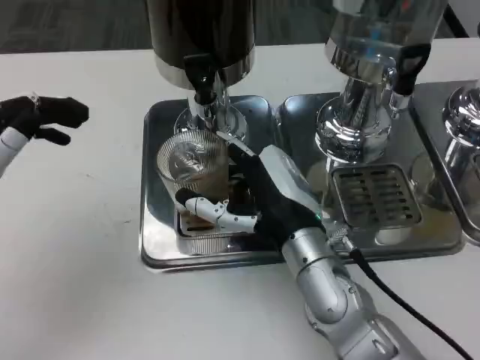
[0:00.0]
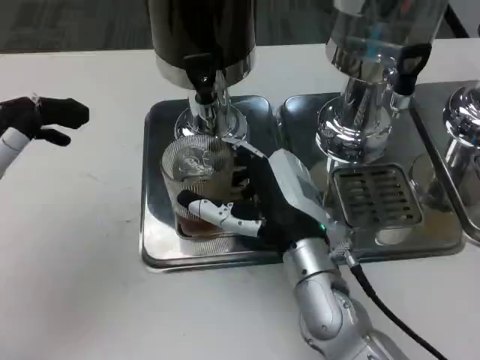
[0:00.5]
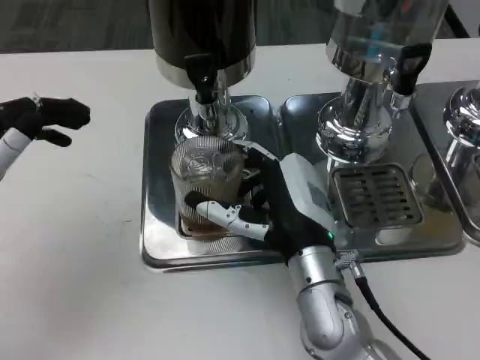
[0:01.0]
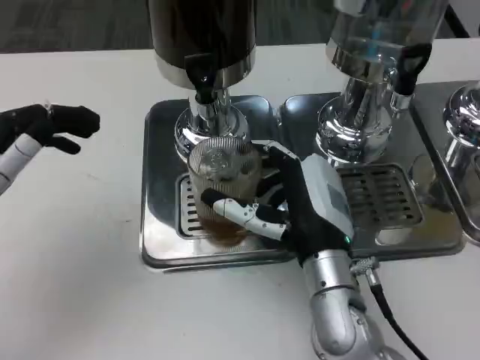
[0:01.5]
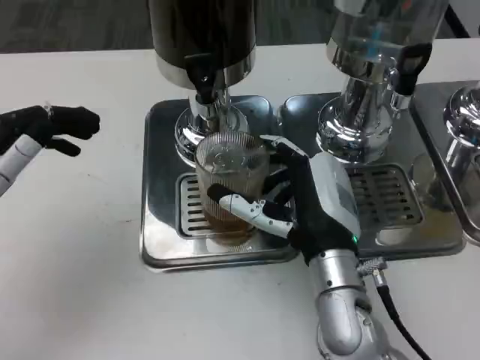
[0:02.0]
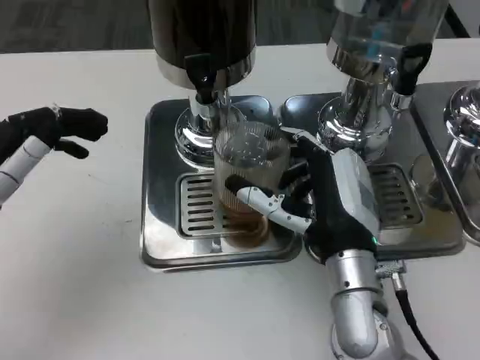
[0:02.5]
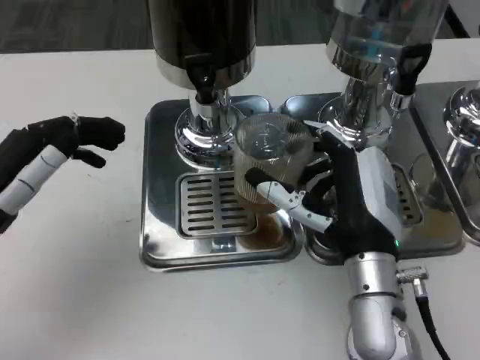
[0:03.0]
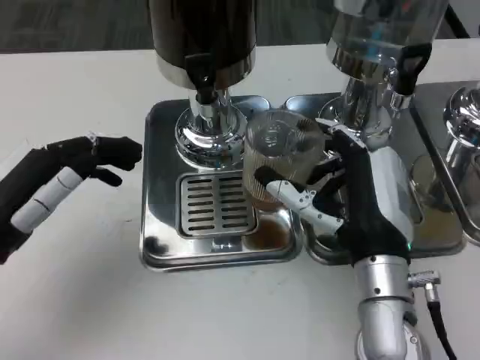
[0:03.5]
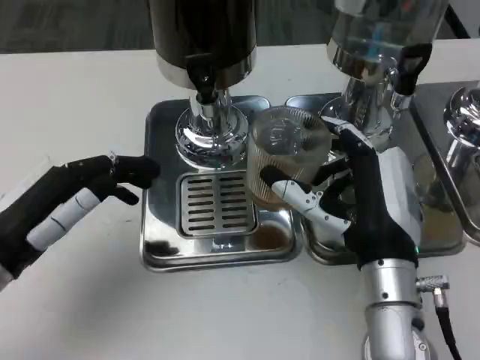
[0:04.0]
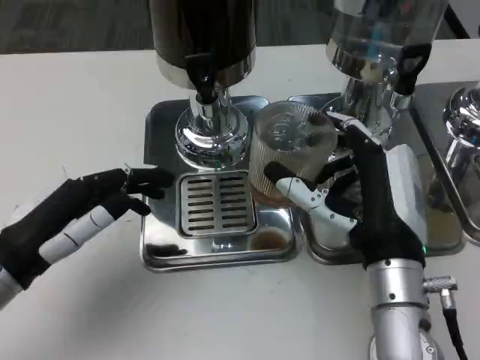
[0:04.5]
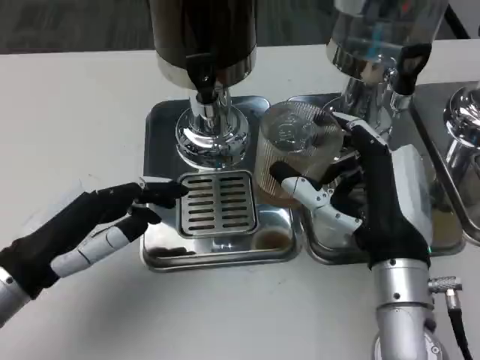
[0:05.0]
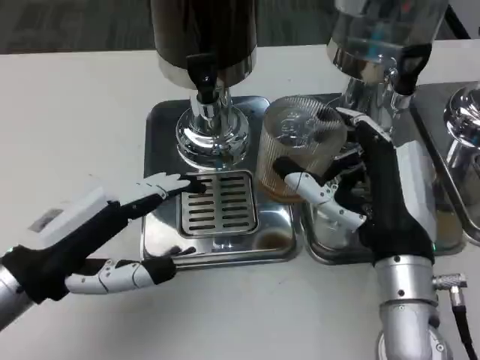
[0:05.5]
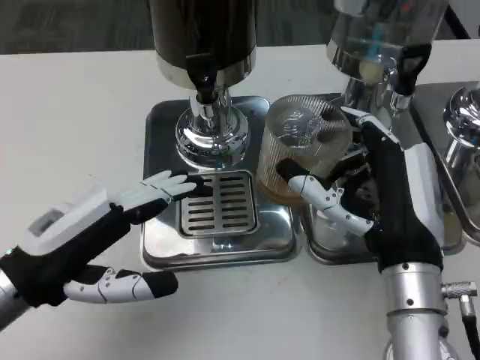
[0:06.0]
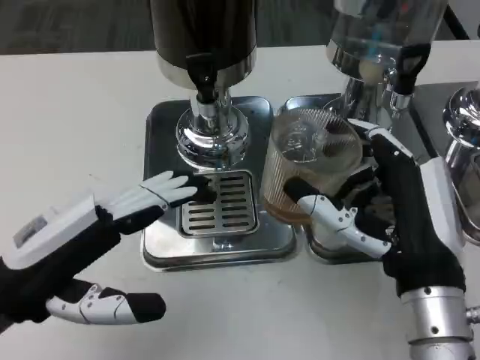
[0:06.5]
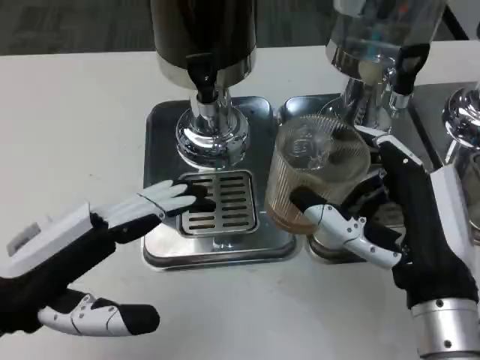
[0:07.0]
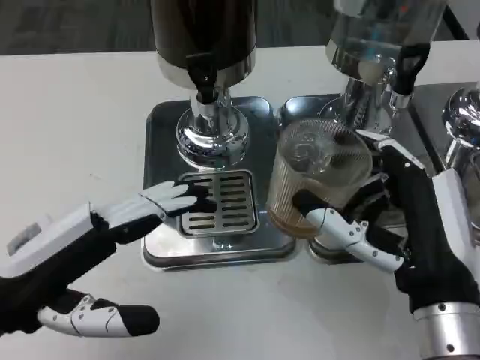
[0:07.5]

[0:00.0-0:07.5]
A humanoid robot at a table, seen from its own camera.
Task of the whole recording: Grasp the cup under the faucet to collect the drink, then remove the cup.
0:00.0 to 0:02.0: The hands move only a little.
0:05.5 to 0:07.5: The right hand travels backward by roughly 5 cm.

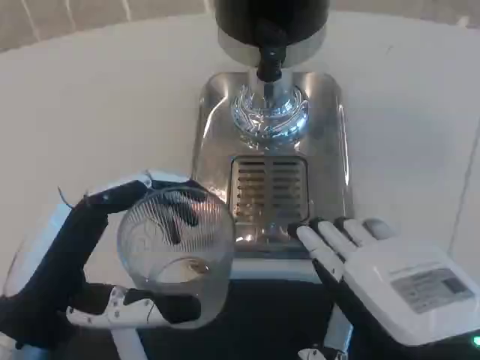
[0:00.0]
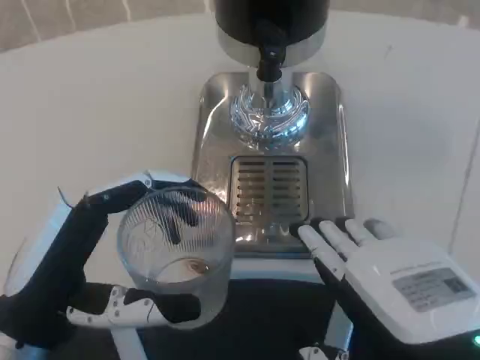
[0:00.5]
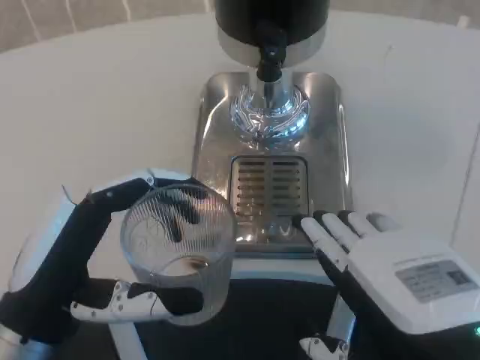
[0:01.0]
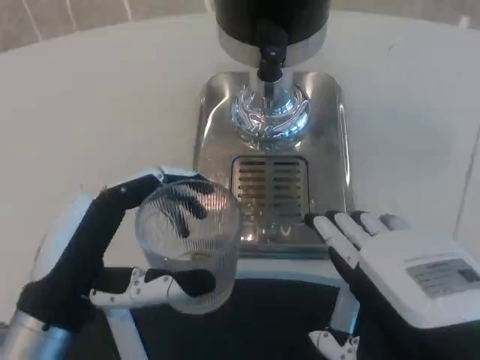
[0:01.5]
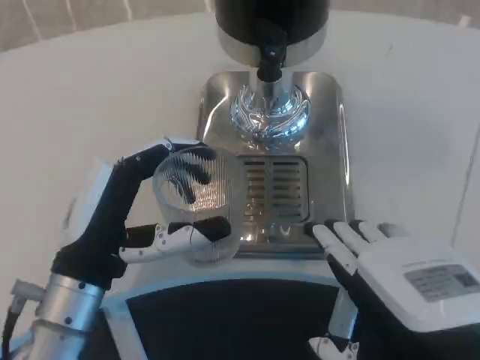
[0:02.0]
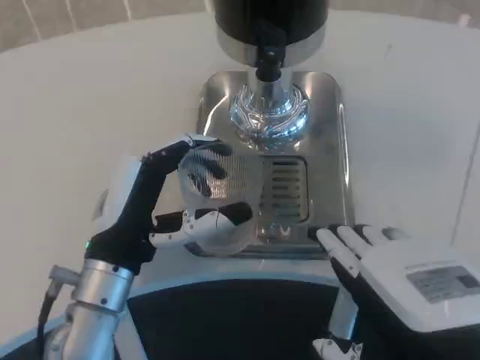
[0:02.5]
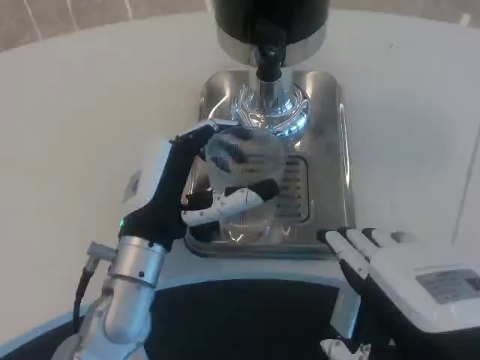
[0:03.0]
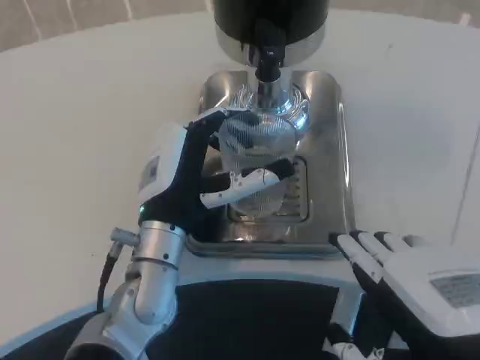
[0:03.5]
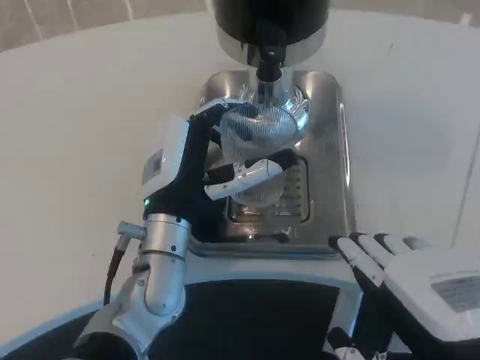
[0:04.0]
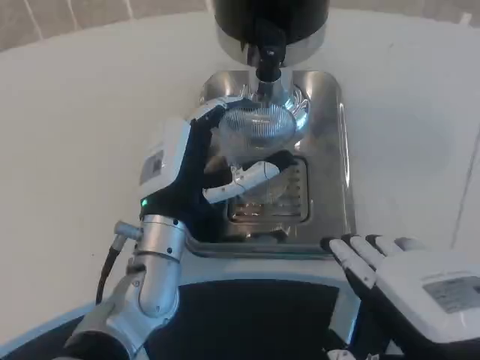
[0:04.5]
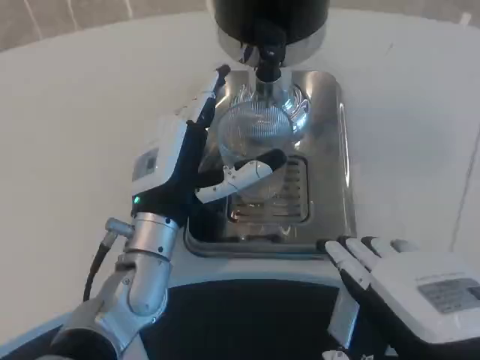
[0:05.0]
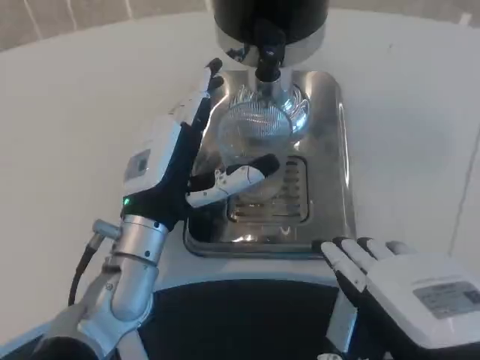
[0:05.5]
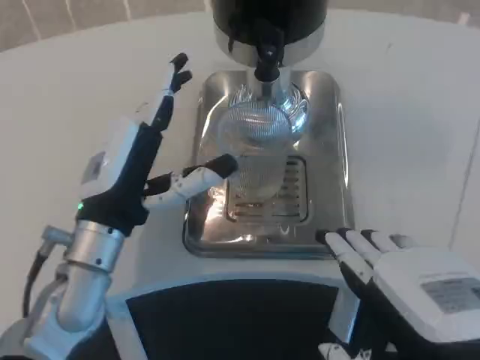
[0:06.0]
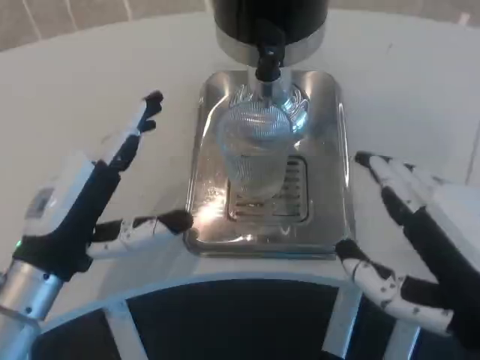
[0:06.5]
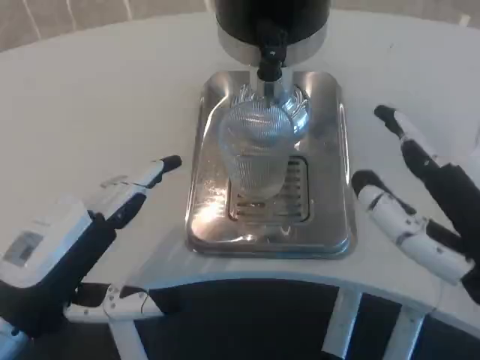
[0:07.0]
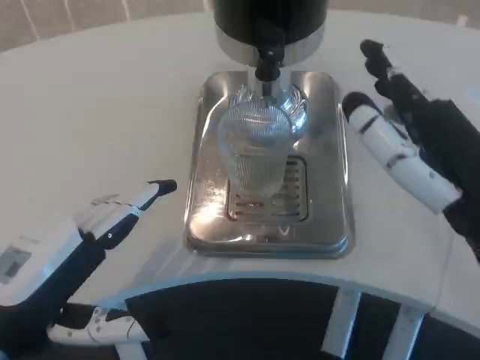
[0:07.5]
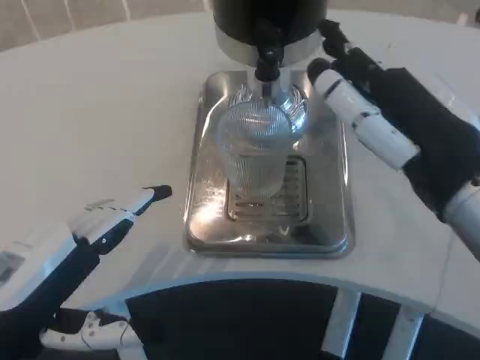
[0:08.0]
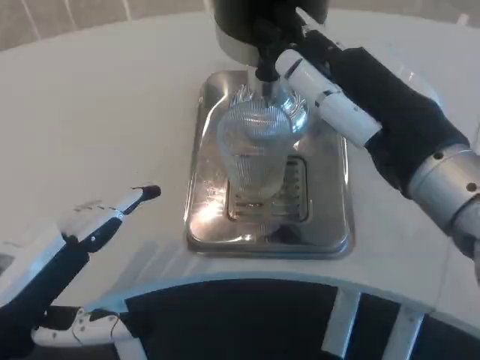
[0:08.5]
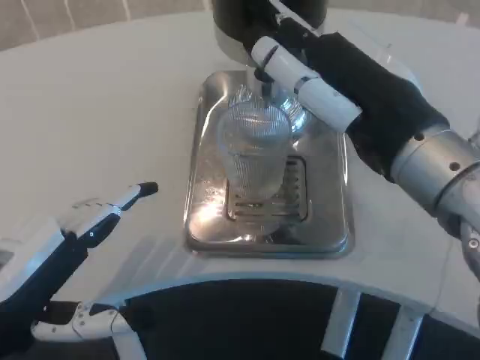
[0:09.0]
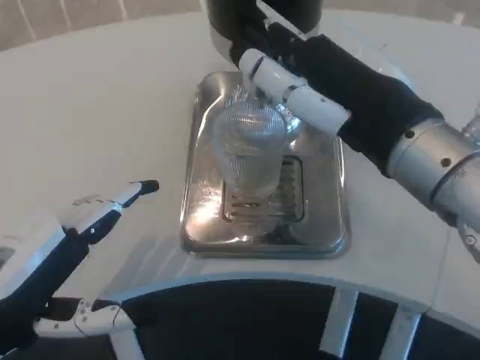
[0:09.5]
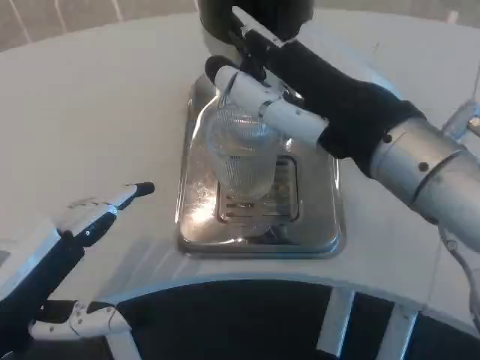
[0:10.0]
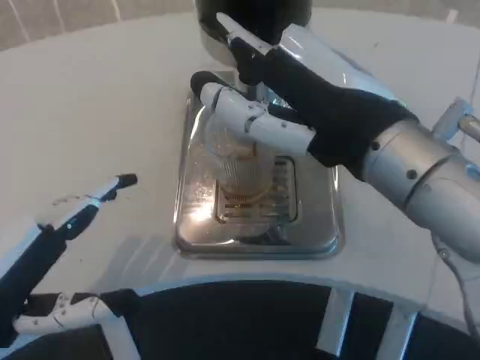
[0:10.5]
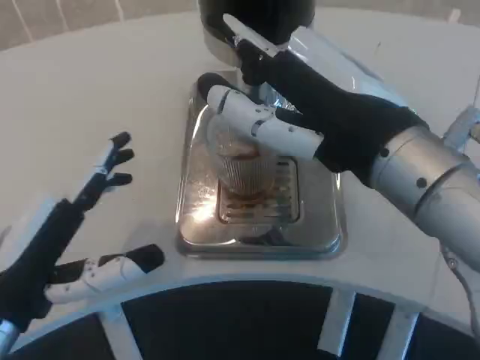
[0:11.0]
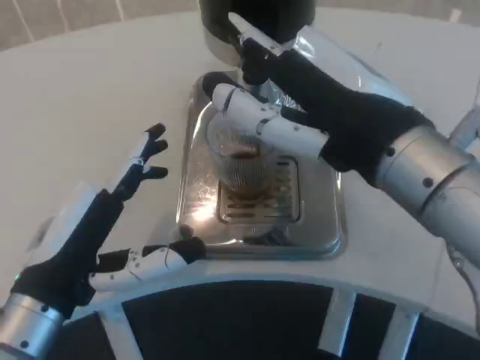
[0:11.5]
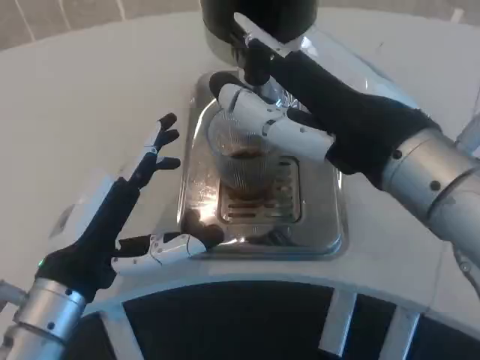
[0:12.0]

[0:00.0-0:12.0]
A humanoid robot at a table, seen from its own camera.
Task of the whole recording: Grasp the cup under the faucet to collect the drink, then remove the cup.
0:00.0 to 0:02.0: The left hand is displaced forward by approximately 5 cm.
0:02.0 to 0:04.0: The left hand heads to the right and forward, covering some 10 cm.
0:04.0 to 0:06.0: The left hand goes some 5 cm to the left.
0:06.0 to 0:08.0: The left hand heads backward and to the left, covering about 15 cm, while the right hand shifts approximately 10 cm forward and upward.
0:08.0 to 0:10.0: The right hand shifts by about 5 cm.
0:10.0 to 0:12.0: The left hand travels to the right by about 5 cm.

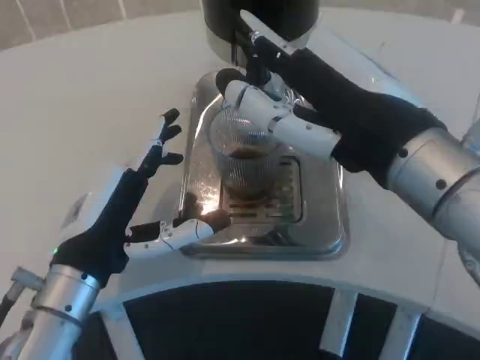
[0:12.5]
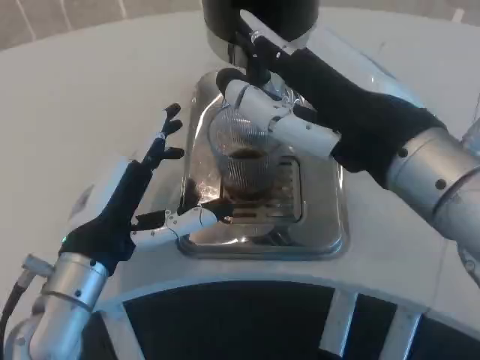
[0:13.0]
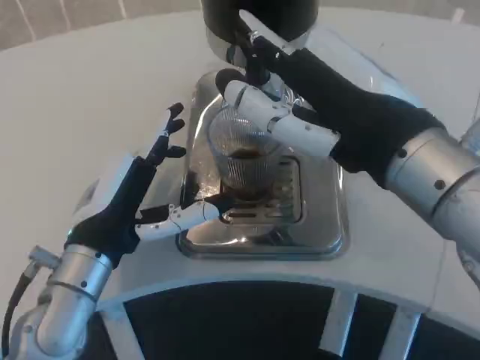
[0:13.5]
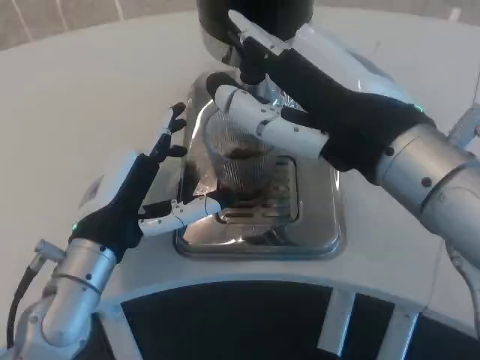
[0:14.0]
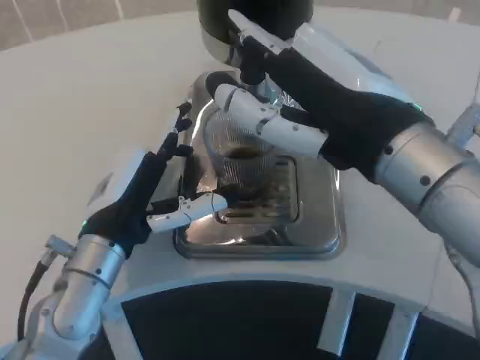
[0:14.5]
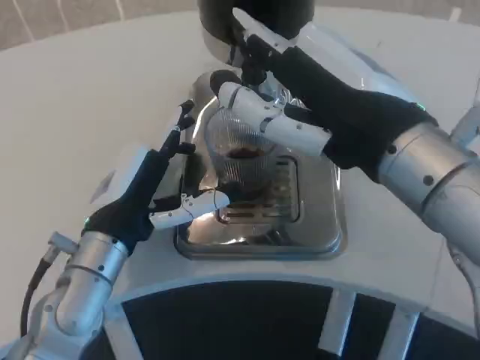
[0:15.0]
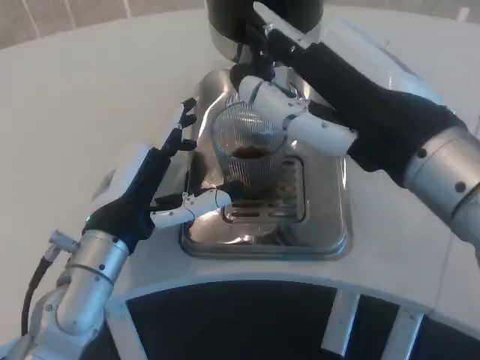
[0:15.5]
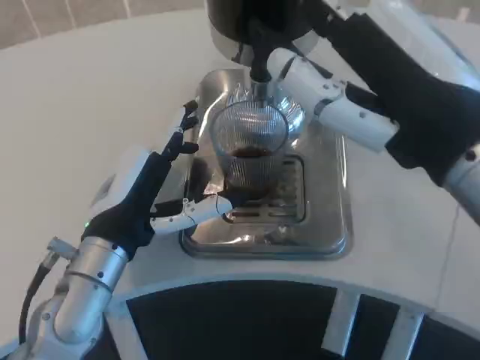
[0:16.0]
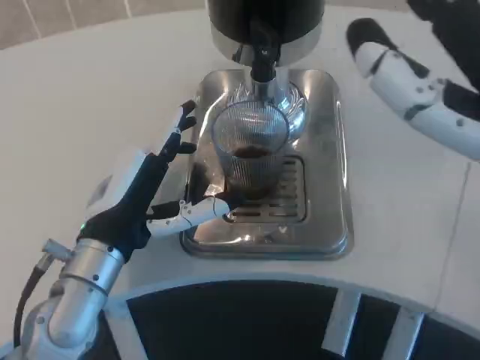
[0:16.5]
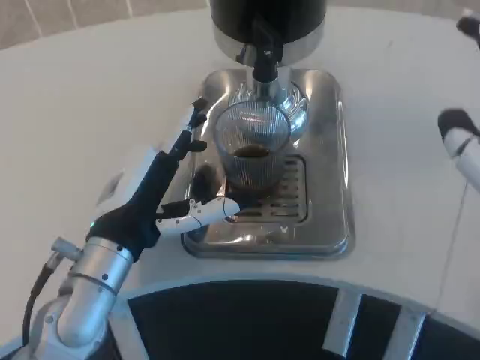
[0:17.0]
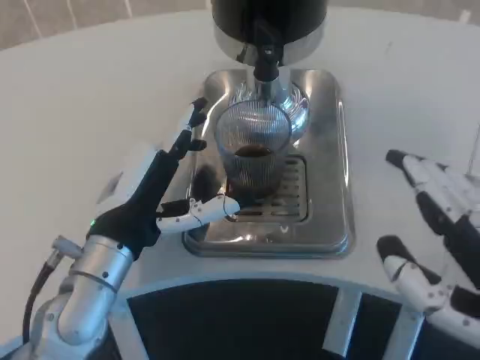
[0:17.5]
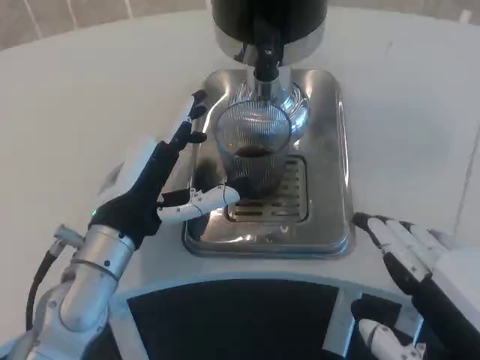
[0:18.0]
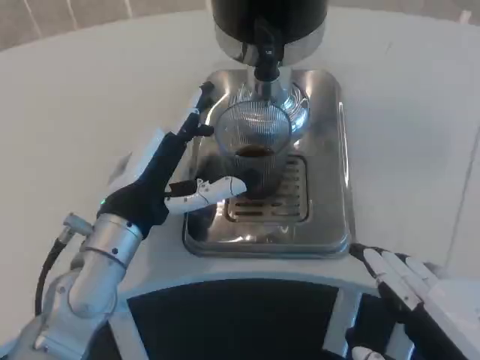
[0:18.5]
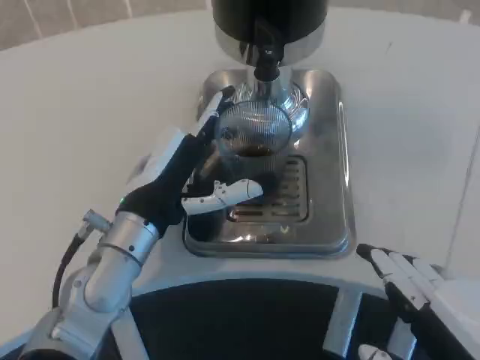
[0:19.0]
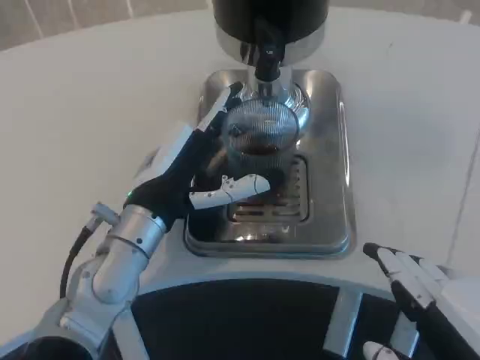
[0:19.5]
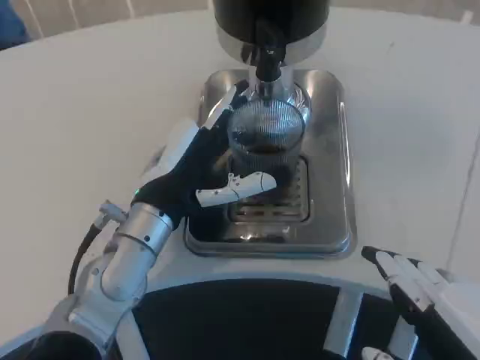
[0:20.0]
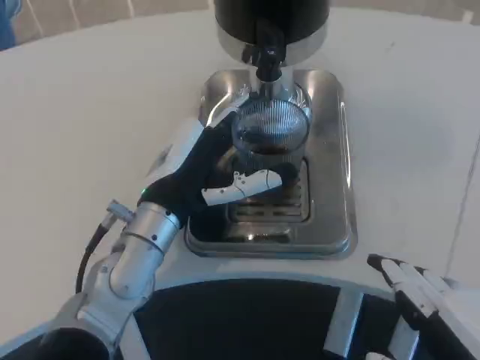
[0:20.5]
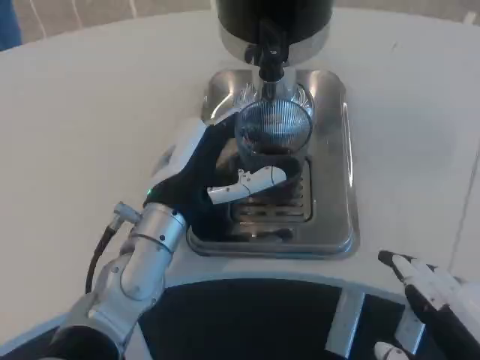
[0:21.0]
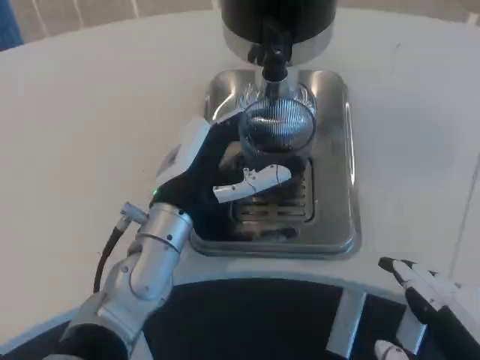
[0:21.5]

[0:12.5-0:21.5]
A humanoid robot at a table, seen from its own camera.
Task of the whole recording: Grasp the cup under the faucet to collect the drink, then remove the cup.
0:14.5 to 0:17.0: The right hand travels to the right and backward by some 15 cm.
0:17.0 to 0:19.5: The right hand heads downward, covering roughly 10 cm.
0:19.5 to 0:21.5: The hands stay close to where they were, moving slightly.
